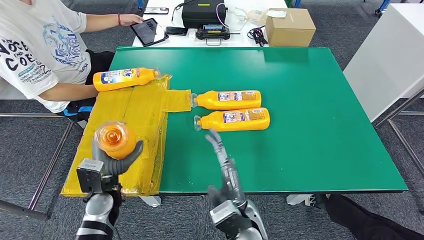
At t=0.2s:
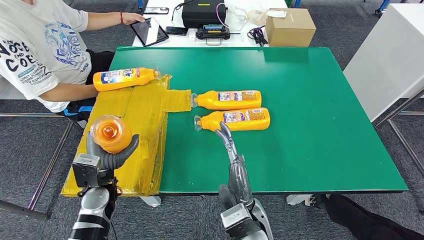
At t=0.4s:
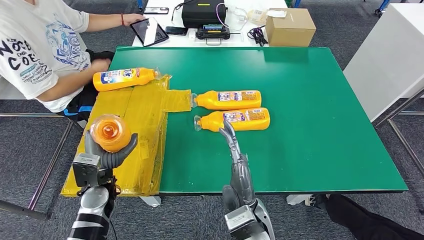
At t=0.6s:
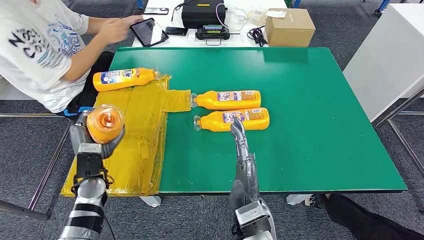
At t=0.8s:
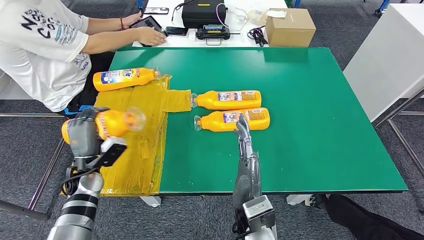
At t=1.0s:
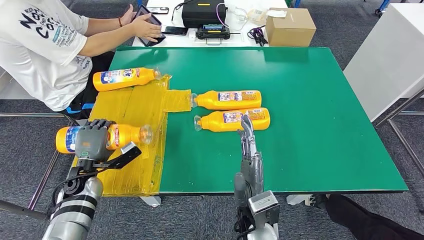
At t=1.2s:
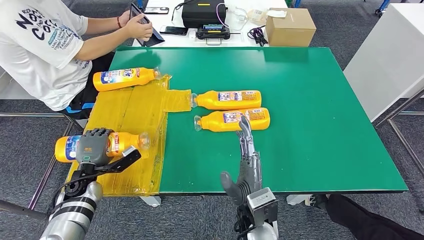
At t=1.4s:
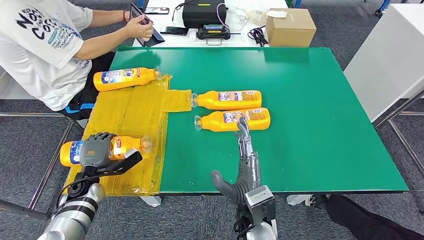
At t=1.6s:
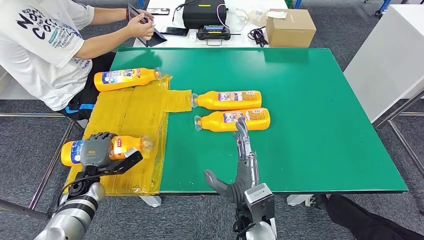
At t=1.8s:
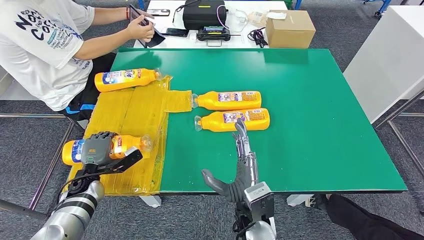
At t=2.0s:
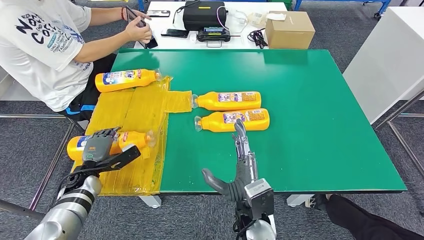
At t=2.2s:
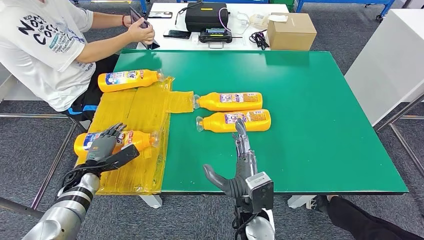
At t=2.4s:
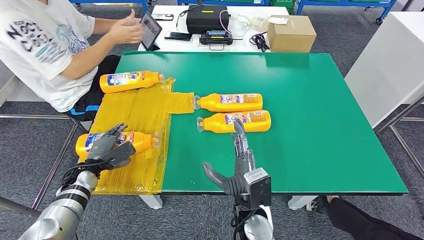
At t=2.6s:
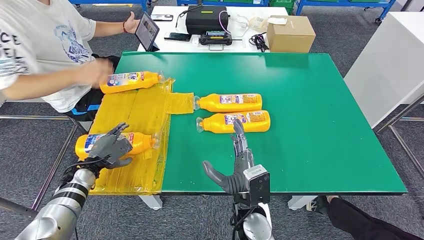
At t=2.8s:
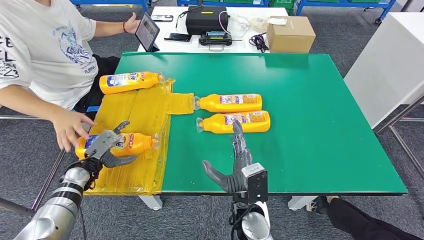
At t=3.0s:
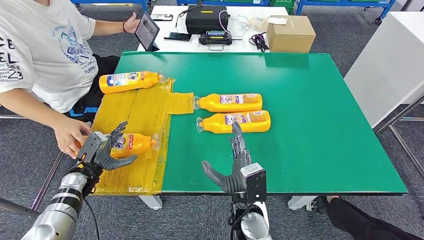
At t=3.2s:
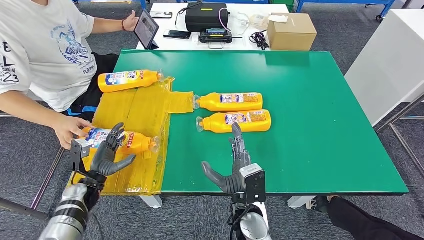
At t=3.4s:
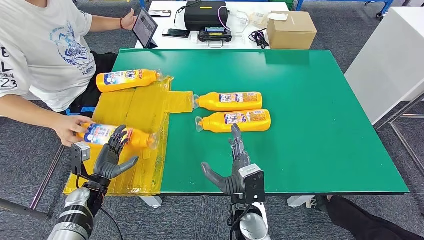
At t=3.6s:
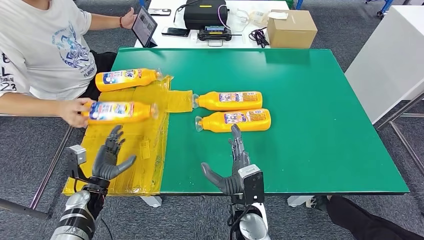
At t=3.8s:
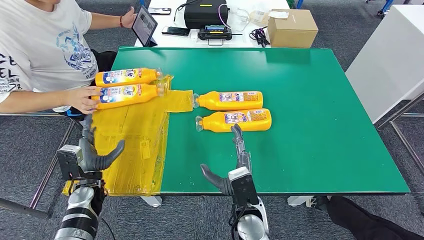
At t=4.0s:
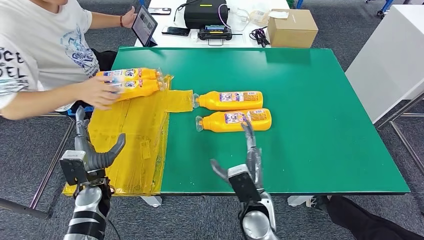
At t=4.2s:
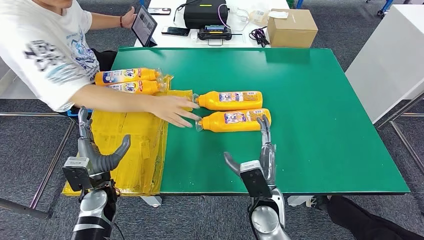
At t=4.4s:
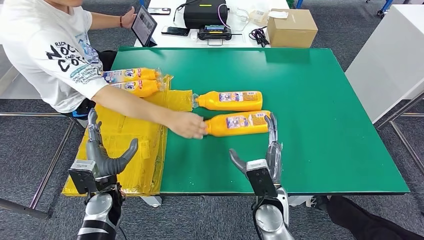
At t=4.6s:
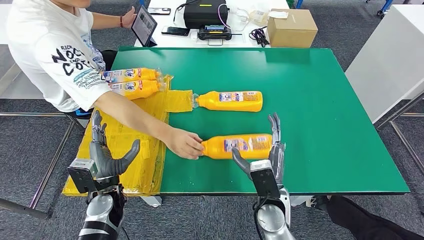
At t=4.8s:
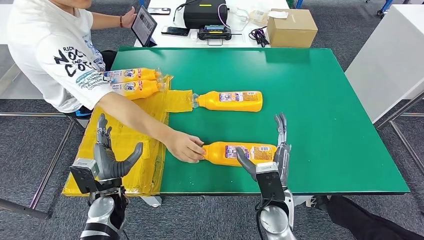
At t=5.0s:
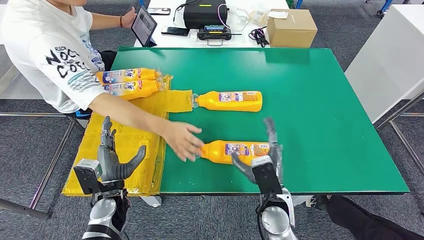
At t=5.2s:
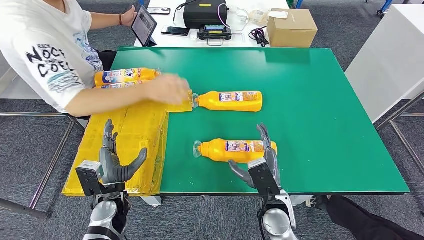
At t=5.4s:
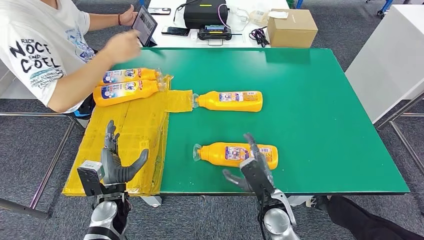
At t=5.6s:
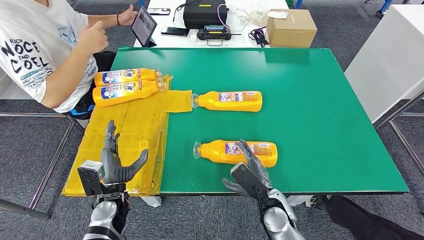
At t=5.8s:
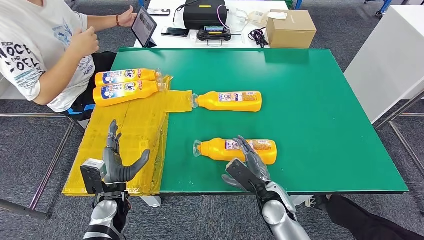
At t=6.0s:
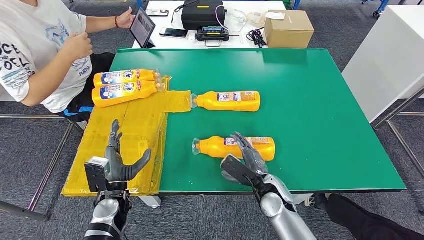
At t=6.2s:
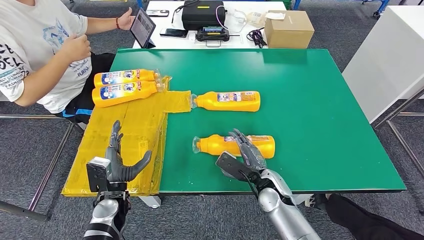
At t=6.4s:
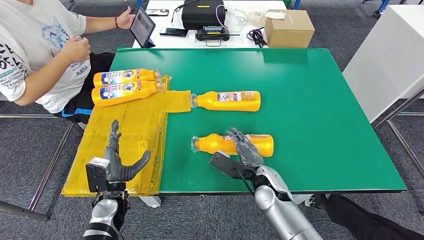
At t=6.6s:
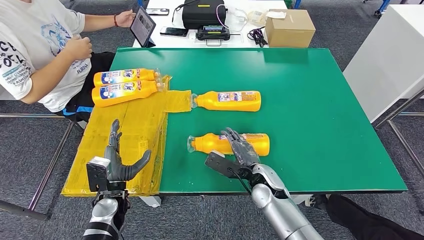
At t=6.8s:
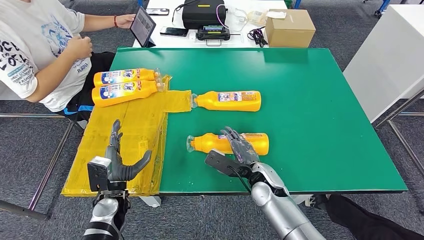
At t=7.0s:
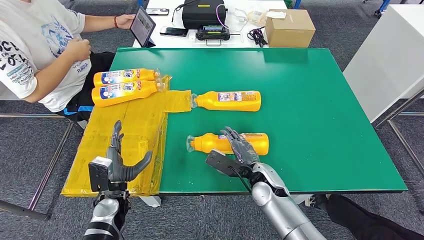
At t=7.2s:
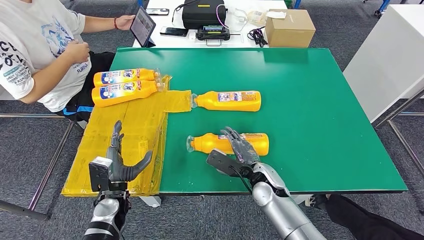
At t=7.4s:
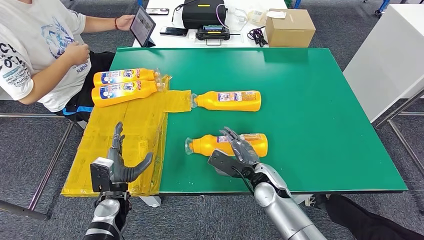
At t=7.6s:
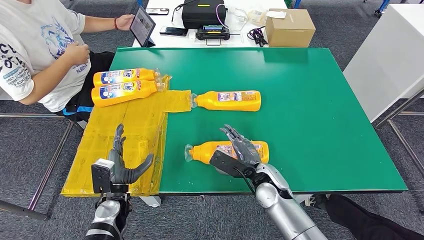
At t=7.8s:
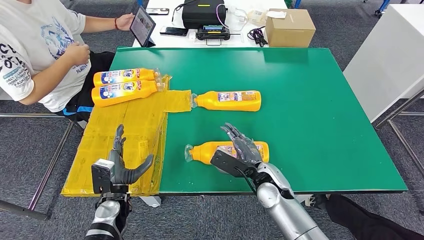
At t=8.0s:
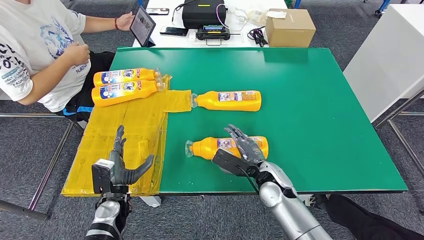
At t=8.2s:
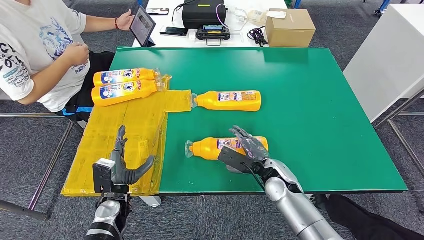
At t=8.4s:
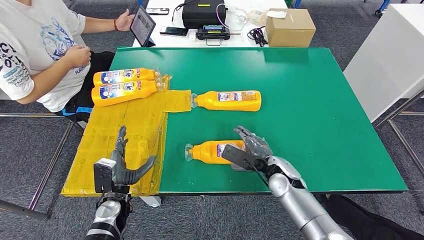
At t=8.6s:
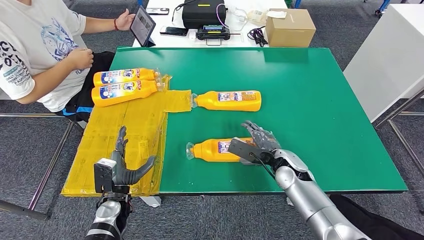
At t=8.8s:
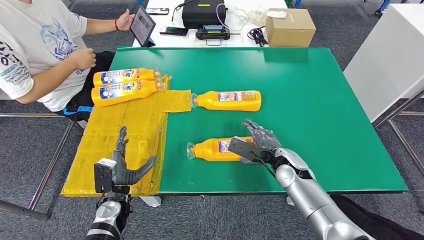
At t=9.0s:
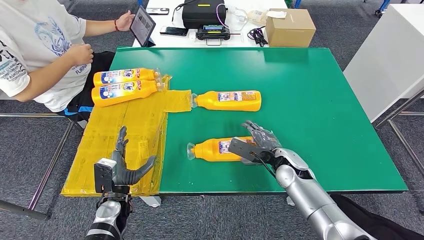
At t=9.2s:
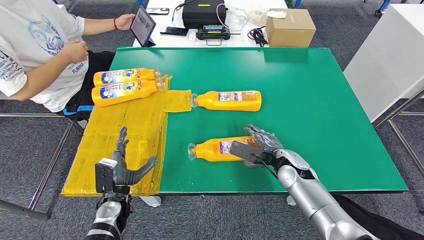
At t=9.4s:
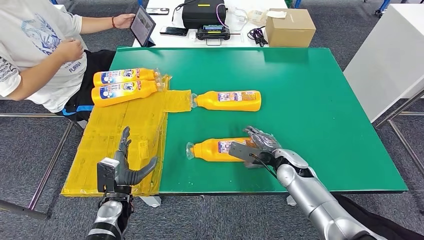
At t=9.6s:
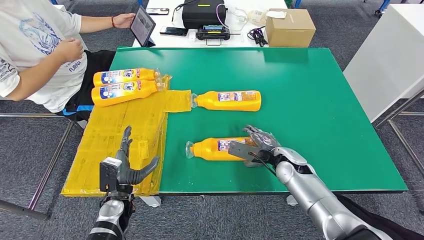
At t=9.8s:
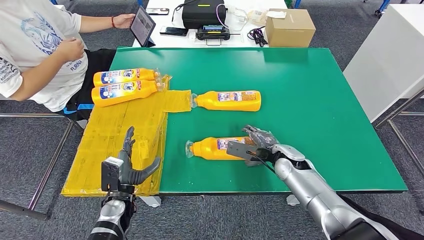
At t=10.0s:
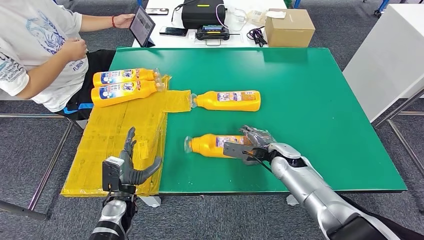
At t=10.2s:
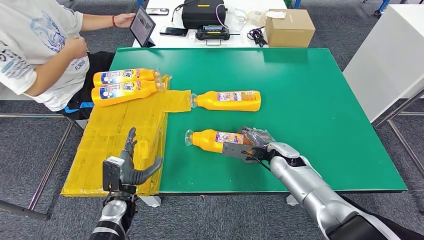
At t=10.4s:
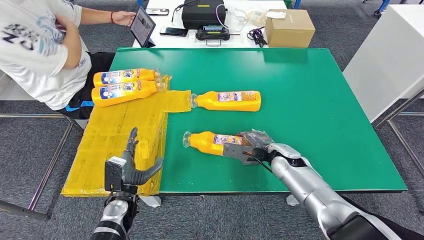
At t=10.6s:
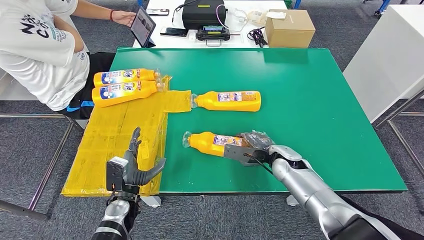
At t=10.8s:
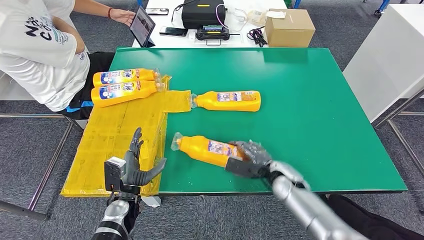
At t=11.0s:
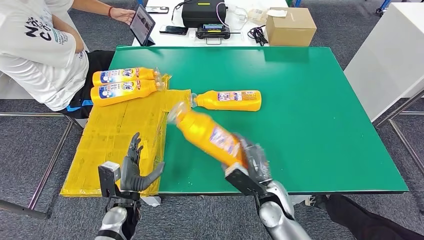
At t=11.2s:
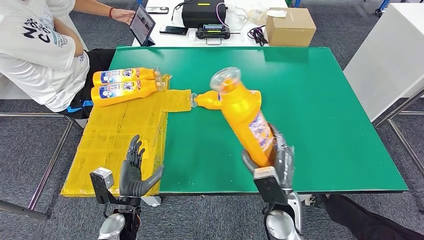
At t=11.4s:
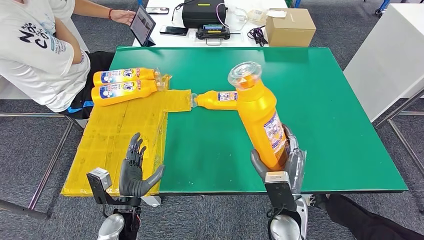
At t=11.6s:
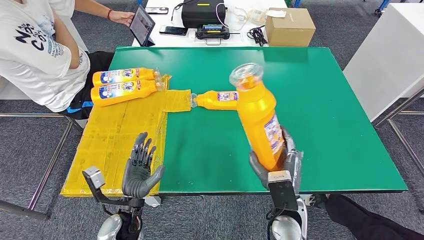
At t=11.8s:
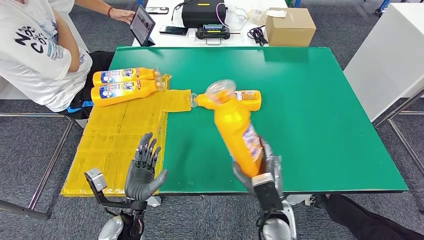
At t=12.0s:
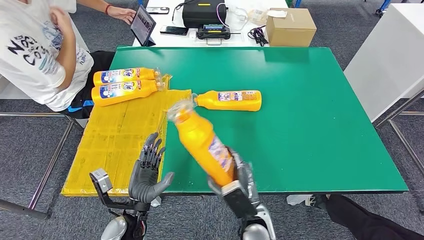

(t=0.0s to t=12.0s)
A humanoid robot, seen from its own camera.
Step, t=0.0s - t=2.6s: Flip the bottle to face forward.
Step, t=9.2s - t=11.8s: Pick up the bottle from the table.
t=6.0s - t=7.6s: The hands move only a little.
t=7.6s - t=9.0s: The right hand heads to the right, covering roughly 5 cm.
t=9.0s - t=10.4s: The hands move only a little.

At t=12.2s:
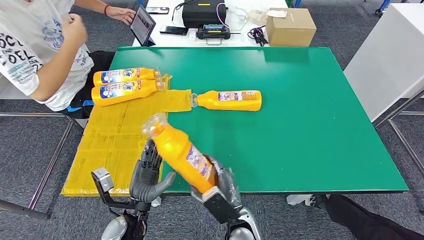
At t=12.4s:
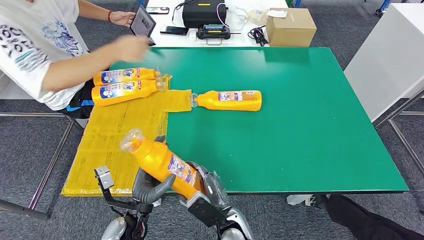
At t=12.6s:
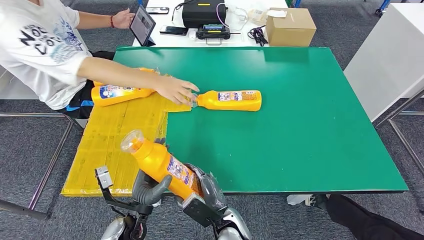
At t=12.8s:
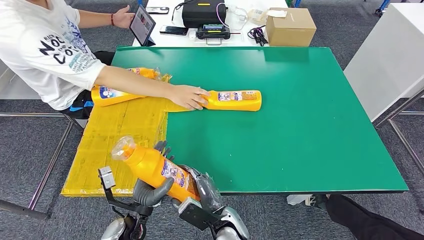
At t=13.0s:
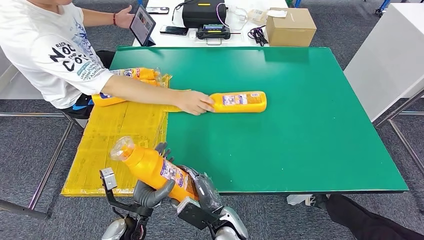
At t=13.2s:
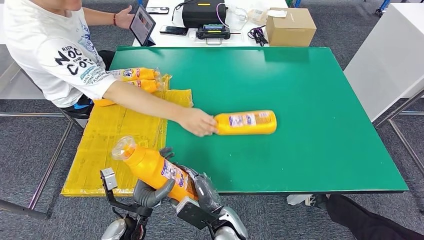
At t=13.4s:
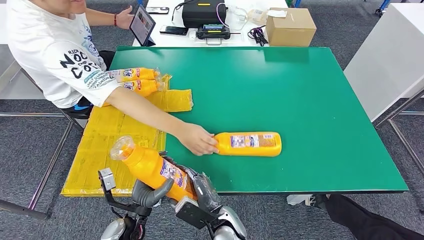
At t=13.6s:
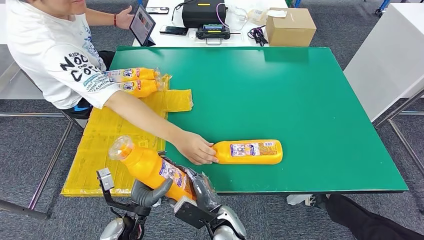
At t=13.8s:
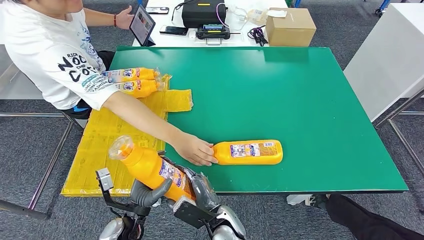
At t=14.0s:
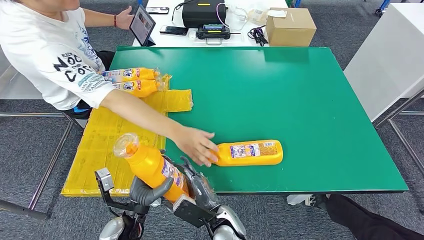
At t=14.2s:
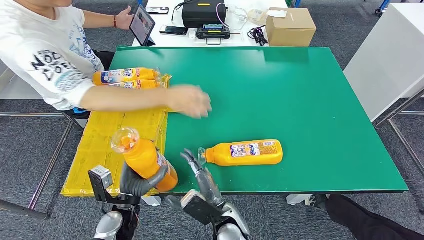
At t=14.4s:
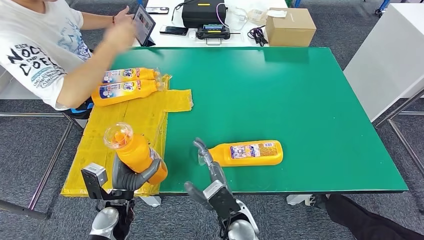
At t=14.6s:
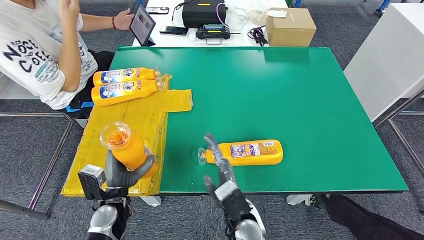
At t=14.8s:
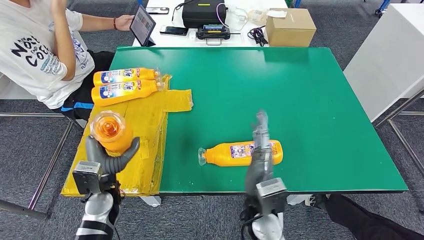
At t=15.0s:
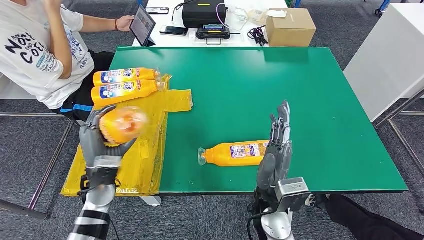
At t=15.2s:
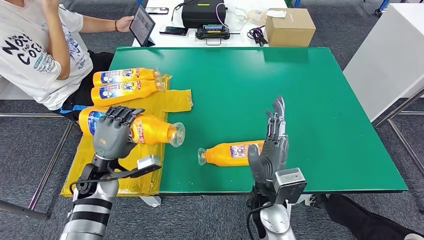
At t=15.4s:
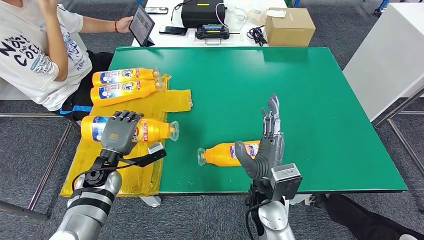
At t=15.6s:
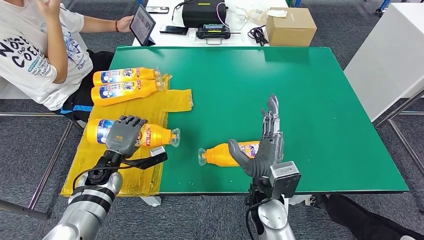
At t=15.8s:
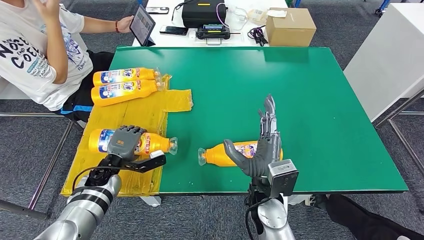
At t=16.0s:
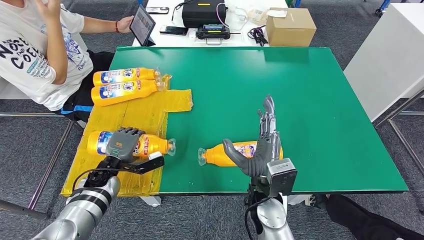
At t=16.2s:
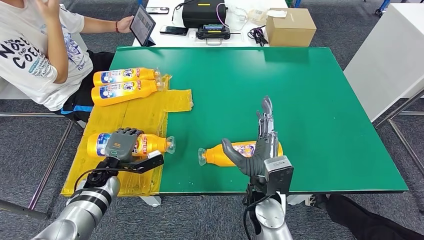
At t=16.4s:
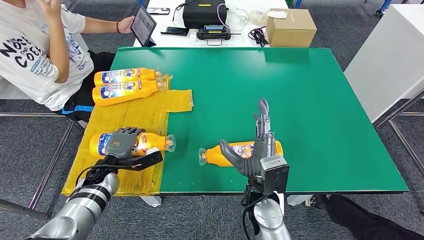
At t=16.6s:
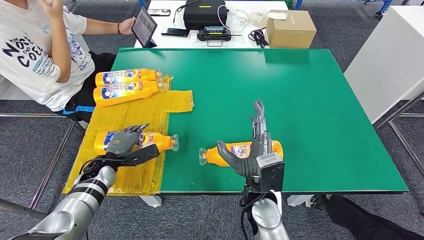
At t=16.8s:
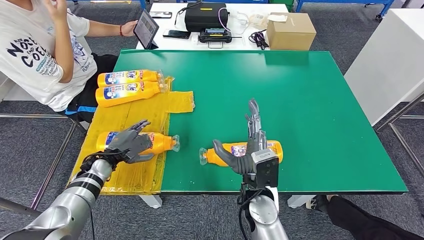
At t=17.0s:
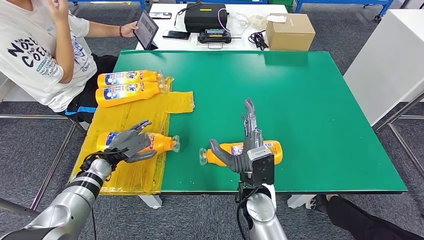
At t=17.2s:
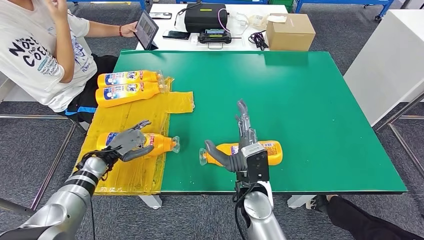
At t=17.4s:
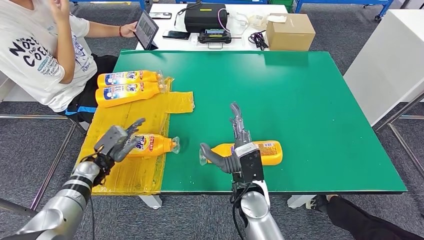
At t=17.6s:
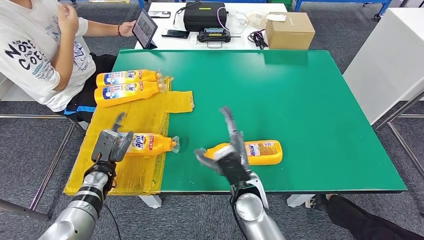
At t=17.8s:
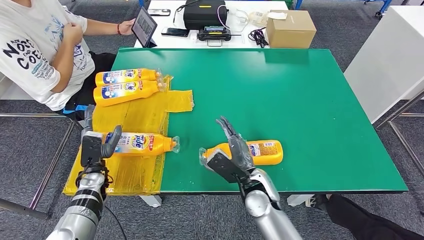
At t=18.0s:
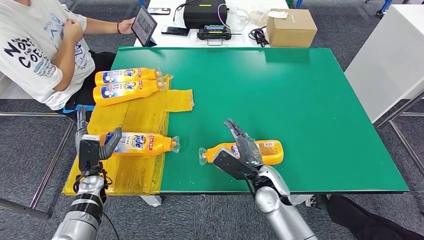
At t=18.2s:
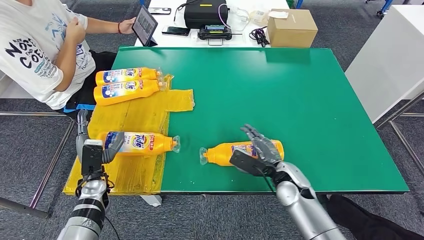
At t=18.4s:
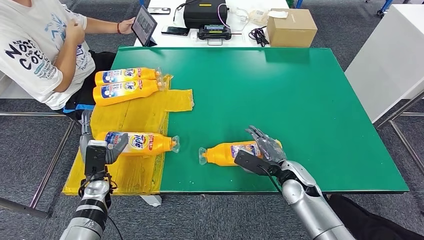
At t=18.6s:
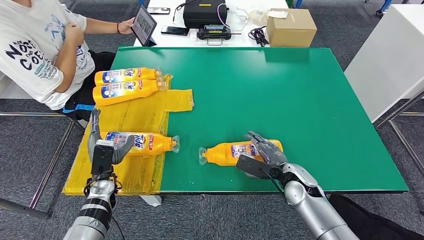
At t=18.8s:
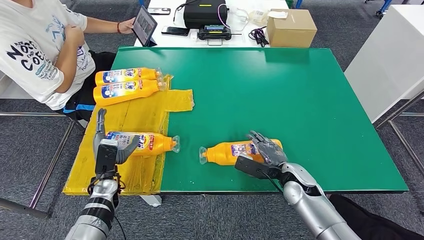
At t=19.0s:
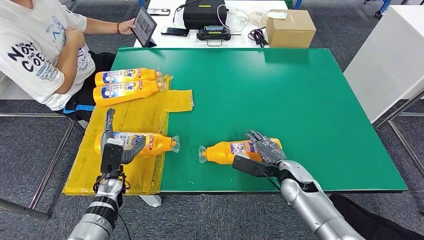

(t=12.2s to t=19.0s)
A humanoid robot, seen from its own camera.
Step, t=12.2s - t=17.0s: Flip the bottle to face forward.
t=15.0s - t=16.2s: The left hand moves downward and forward, roughly 10 cm.
